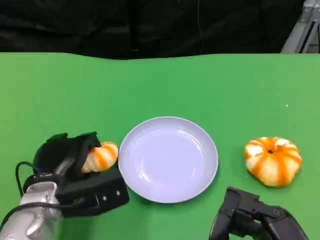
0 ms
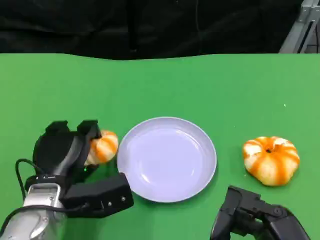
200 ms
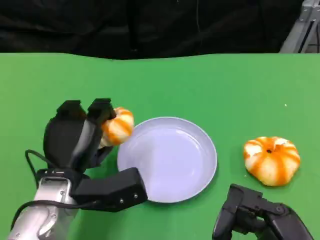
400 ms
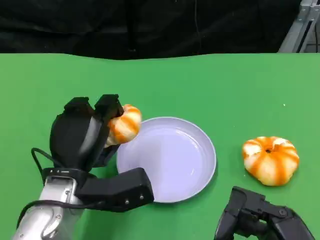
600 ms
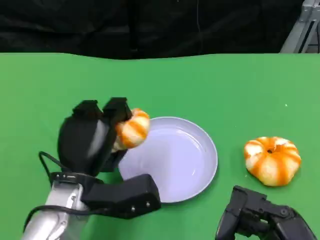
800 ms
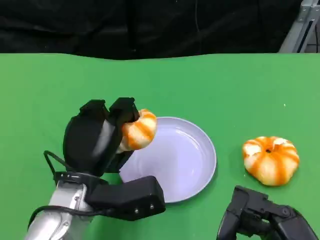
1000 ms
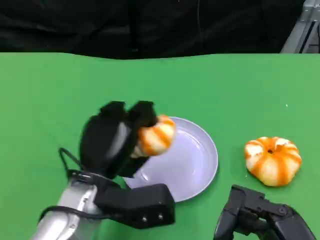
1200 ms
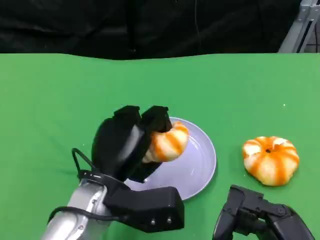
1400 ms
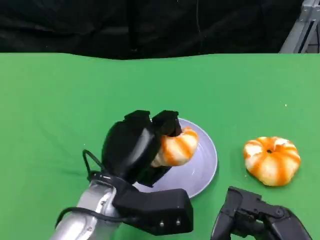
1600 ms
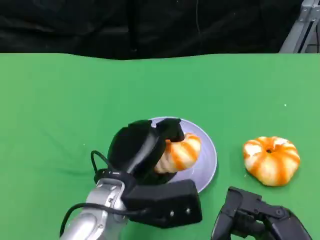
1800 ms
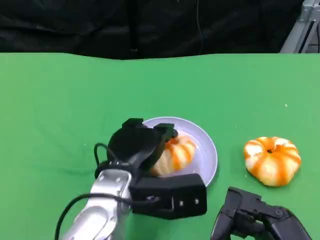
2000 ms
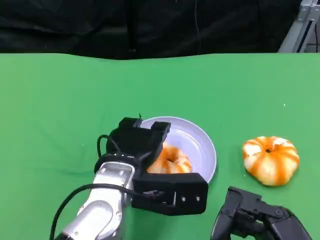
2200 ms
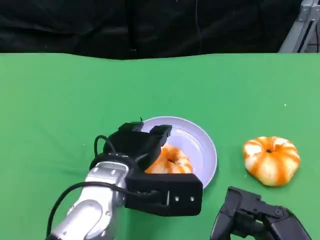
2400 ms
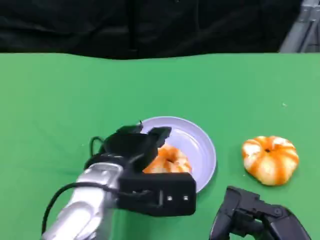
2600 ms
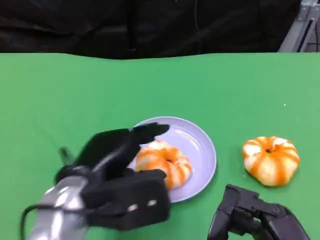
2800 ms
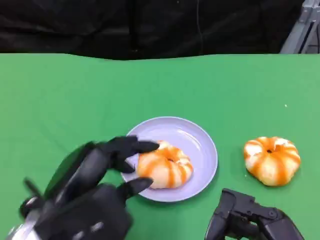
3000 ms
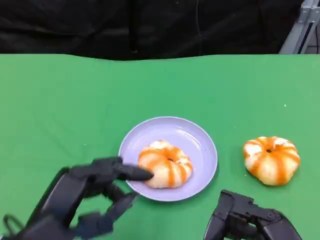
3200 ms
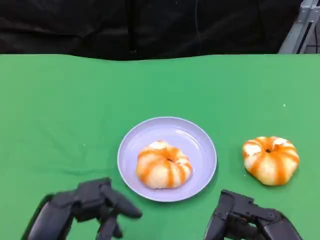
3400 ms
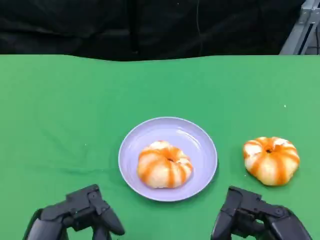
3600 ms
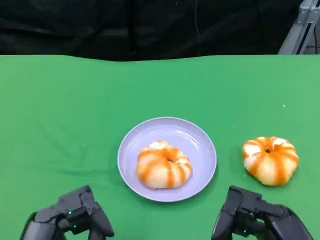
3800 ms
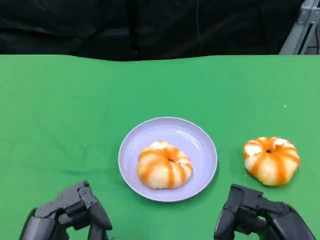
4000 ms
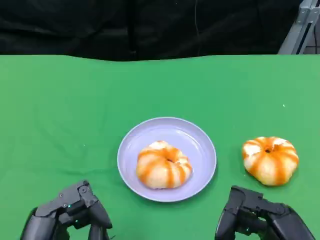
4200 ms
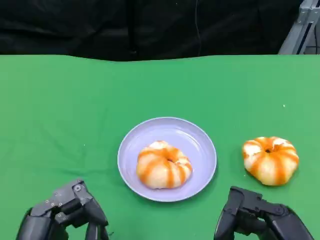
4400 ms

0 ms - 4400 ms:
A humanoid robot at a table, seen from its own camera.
Task of the whole recording: Grasp the bread from the table and place it into the plate.
0 ms - 1400 ms: The left hand shifts about 10 cm to the right.
1400 ms - 3000 ms: The left hand travels backward, to the left and upward by approximately 10 cm.
3000 ms - 4400 ms: The left hand shifts about 10 cm backward and downward.

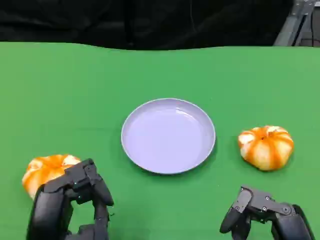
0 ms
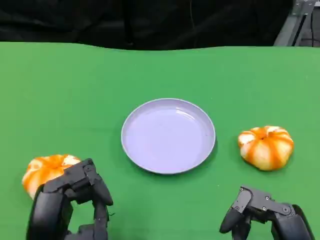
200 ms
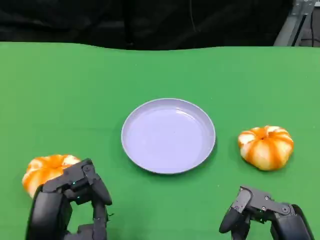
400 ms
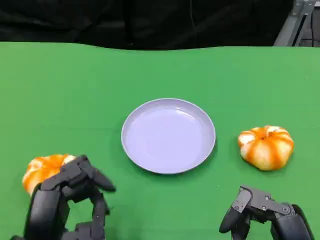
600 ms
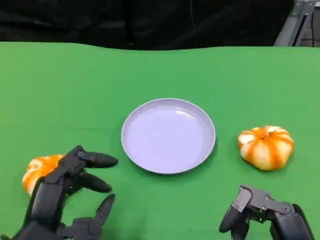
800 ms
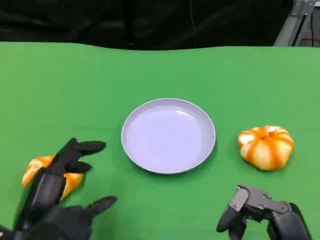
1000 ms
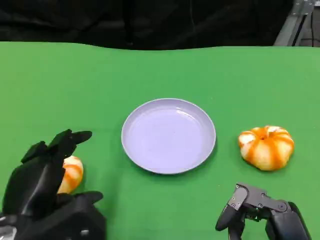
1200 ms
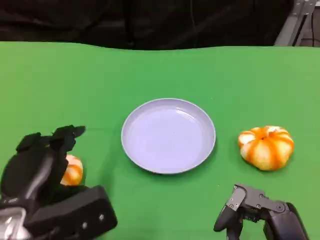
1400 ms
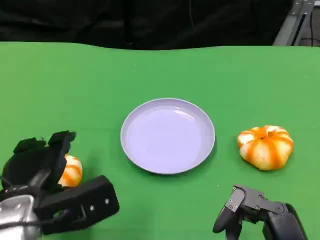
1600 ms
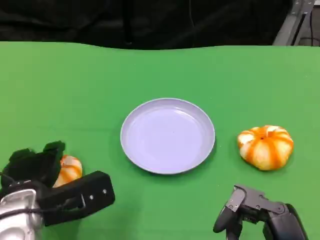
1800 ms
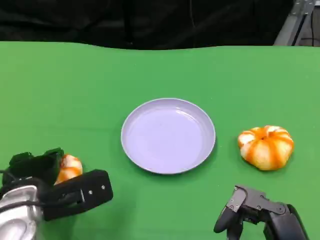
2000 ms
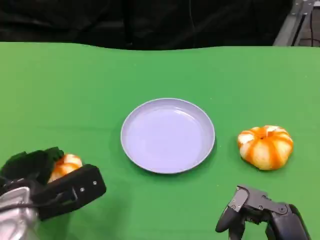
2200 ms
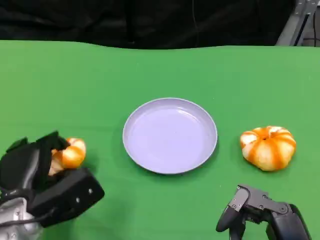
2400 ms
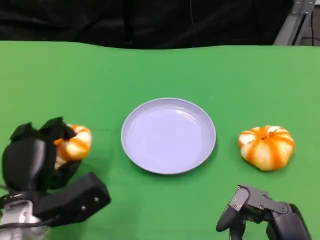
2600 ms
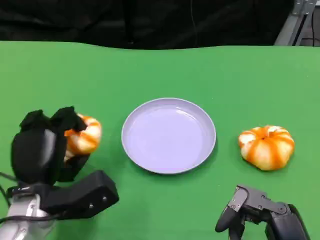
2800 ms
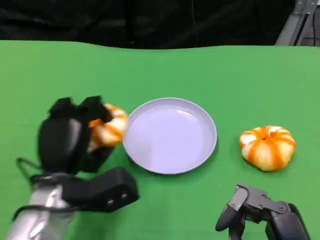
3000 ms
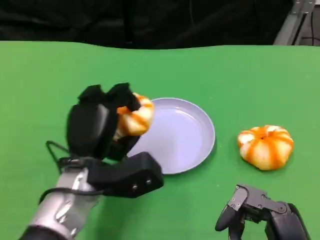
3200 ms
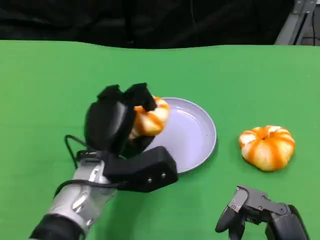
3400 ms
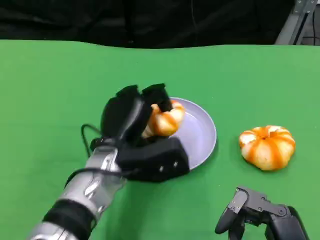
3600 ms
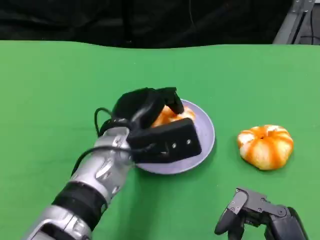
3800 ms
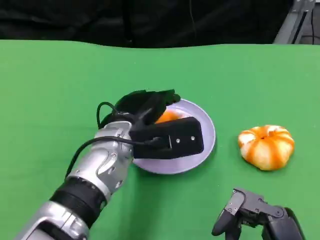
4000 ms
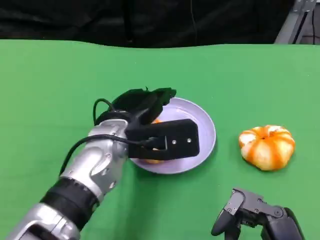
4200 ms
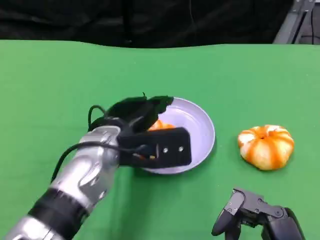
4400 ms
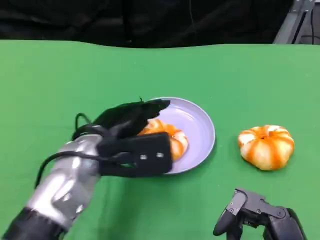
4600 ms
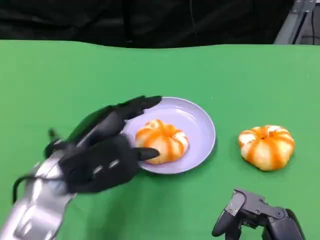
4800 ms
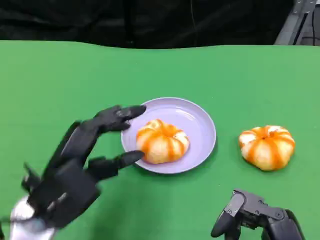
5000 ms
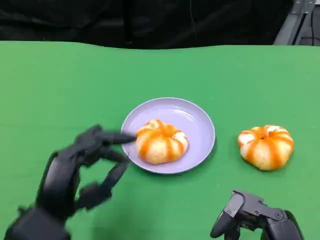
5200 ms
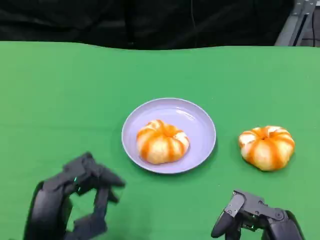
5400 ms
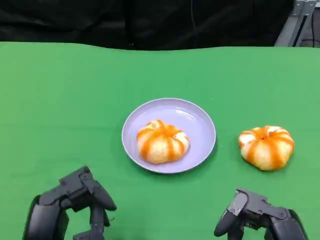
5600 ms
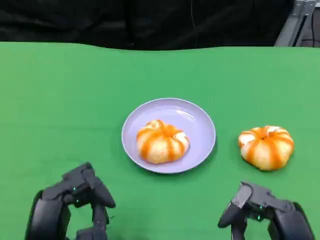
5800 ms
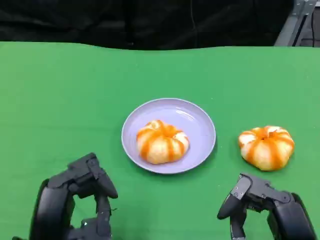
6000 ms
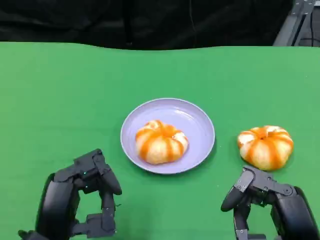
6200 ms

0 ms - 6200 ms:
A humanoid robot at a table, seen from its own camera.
Task of the whole recording: Grasp the bread from the table and place it into the plate.
0 ms - 1600 ms: The left hand travels forward by about 10 cm.
1600 ms - 3200 ms: The left hand travels to the right and forward by about 10 cm.
3200 ms - 4600 ms: The left hand moves upward, some 5 cm.
4600 ms - 6200 ms: The left hand moves backward, approximately 10 cm.

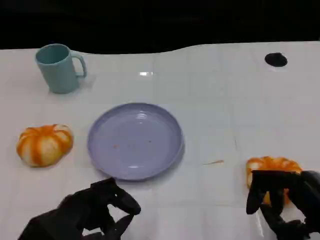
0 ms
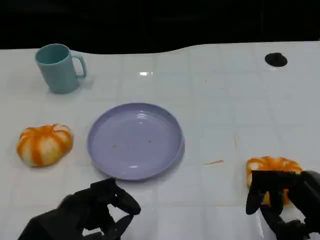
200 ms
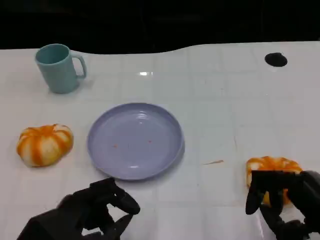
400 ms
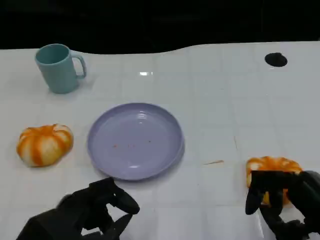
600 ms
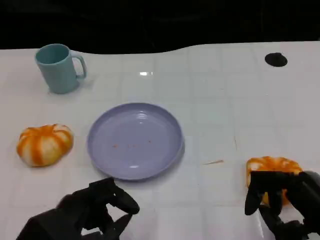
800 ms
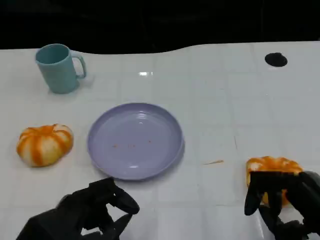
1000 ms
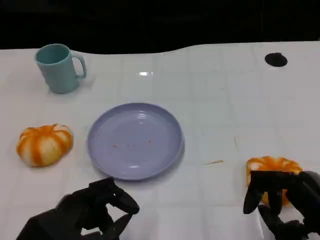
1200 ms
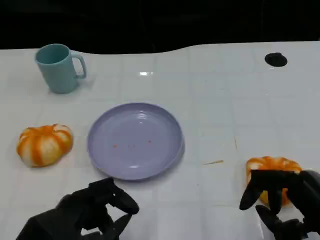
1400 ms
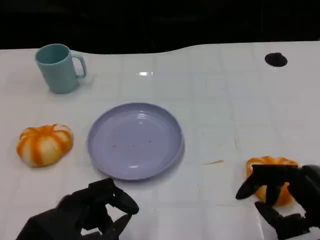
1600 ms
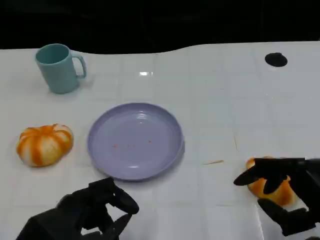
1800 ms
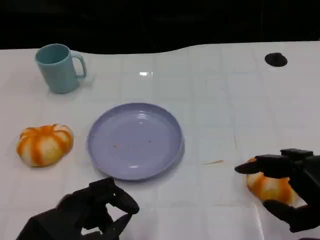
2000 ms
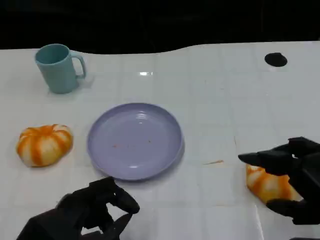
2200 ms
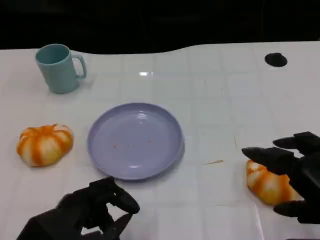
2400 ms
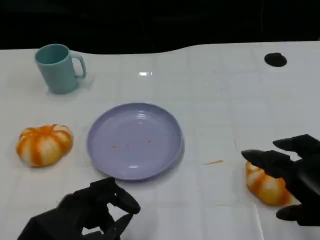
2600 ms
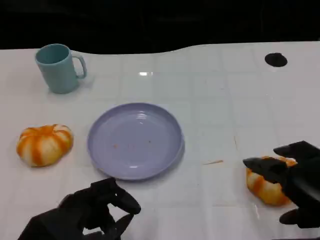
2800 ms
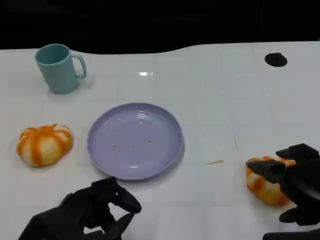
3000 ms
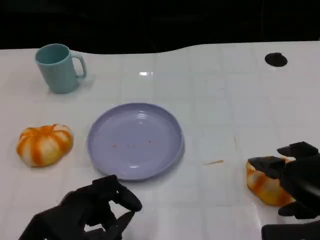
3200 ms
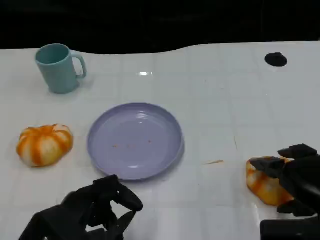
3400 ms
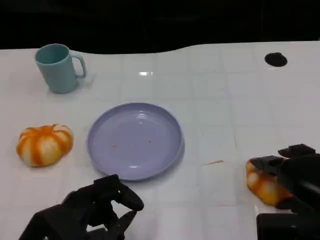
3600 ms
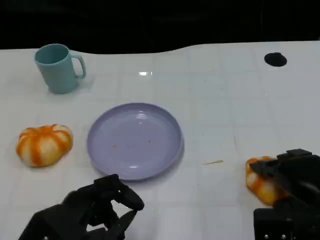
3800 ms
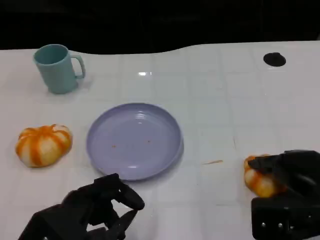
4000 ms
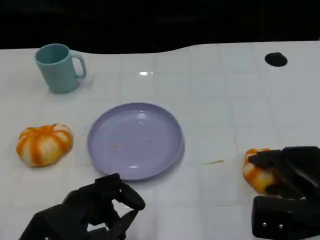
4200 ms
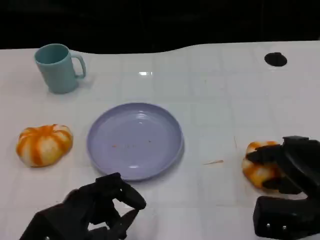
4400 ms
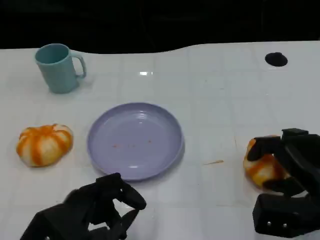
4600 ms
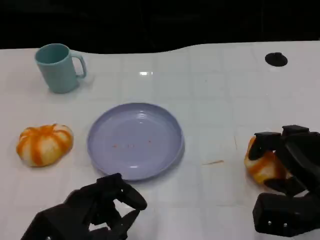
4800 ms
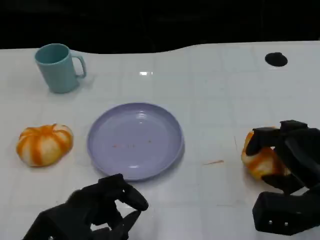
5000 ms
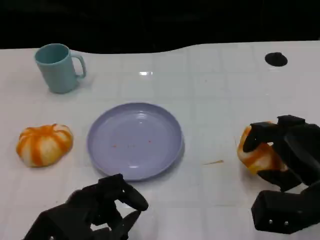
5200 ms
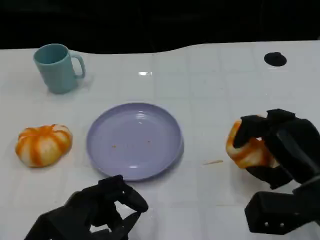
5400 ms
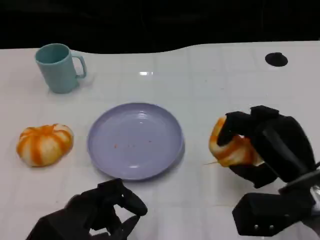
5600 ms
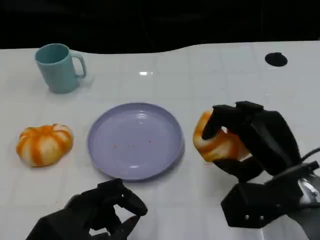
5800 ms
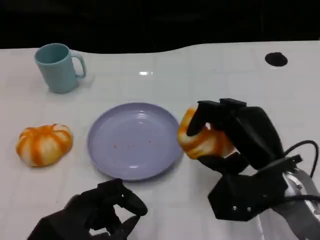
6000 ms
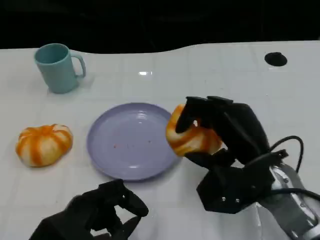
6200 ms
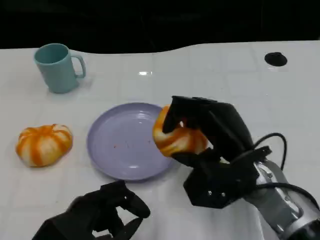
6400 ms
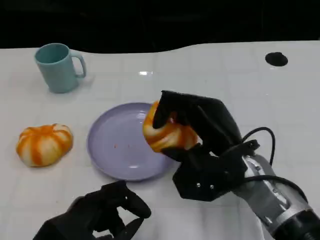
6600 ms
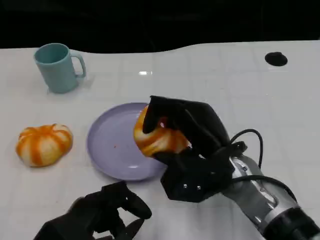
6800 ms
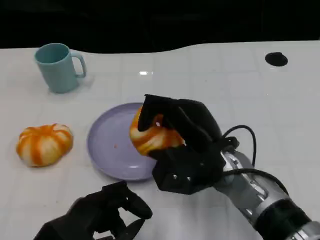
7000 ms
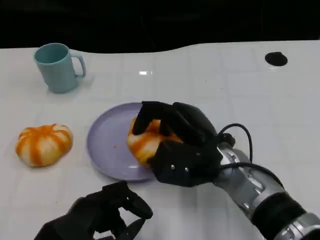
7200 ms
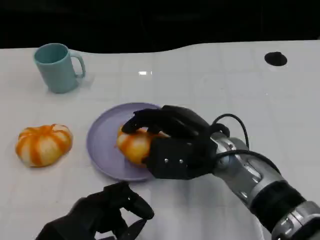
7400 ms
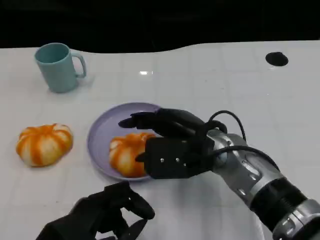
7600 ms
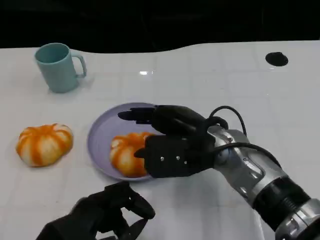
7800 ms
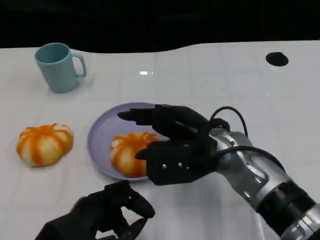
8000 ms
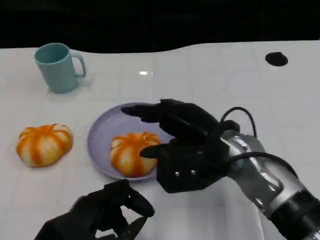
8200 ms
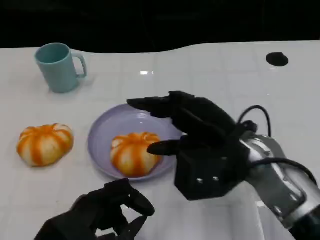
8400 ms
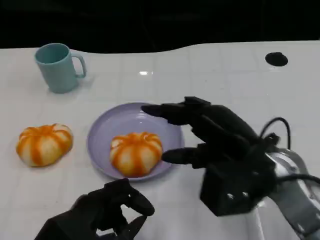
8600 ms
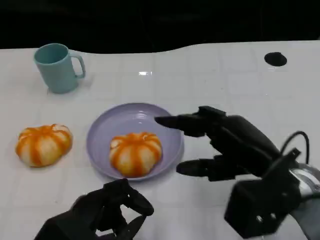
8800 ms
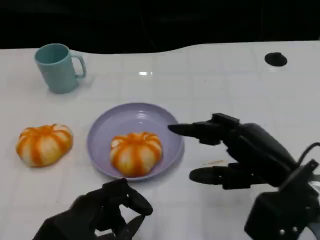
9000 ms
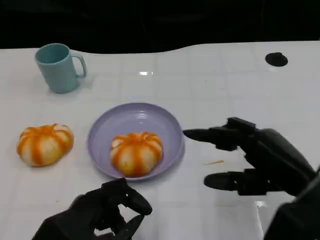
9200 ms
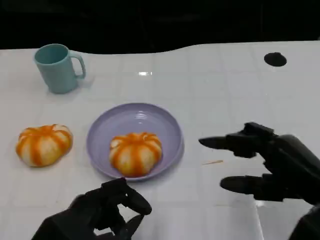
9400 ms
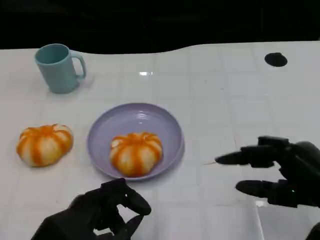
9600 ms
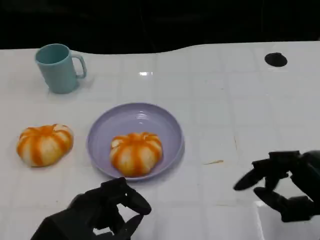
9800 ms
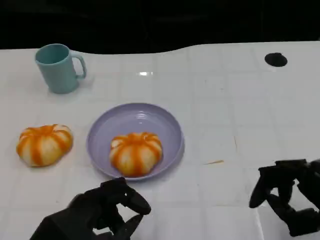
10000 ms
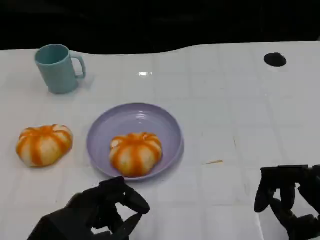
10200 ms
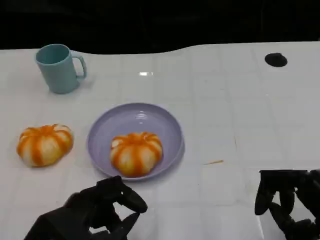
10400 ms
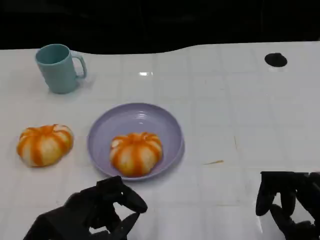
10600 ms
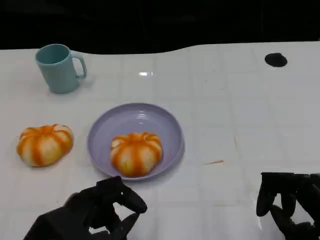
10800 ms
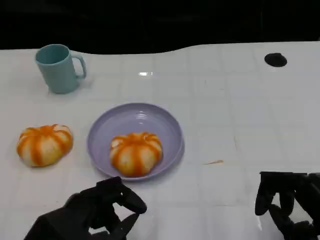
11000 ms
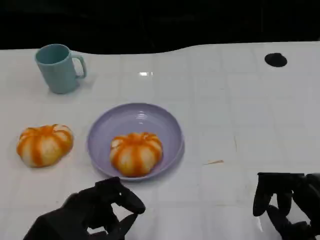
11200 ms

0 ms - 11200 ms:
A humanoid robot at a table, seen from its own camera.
Task of the whole recording: Grasp the bread from the table and place it into the plate.
0 ms - 1600 ms: Neither hand changes place.
3200 ms - 4800 ms: The right hand shifts by about 5 cm.
4800 ms - 6400 ms: The right hand heads to the left, covering approximately 10 cm.
8000 ms - 9600 ms: The right hand goes some 20 cm to the right and backward.
9600 ms - 11200 ms: The hands stay close to where they were, moving slightly.
